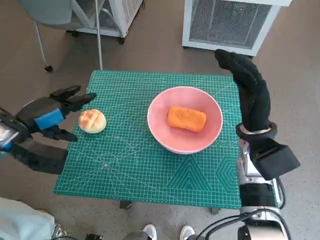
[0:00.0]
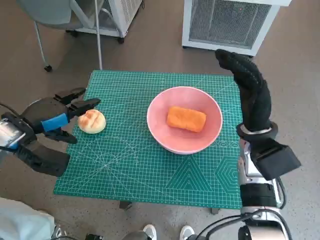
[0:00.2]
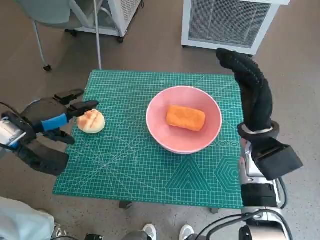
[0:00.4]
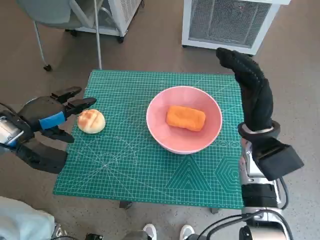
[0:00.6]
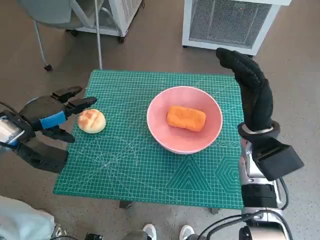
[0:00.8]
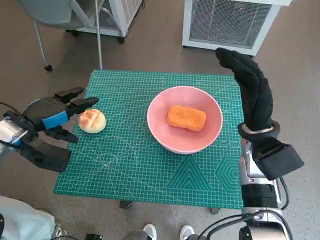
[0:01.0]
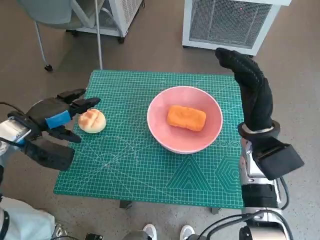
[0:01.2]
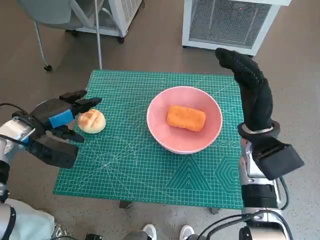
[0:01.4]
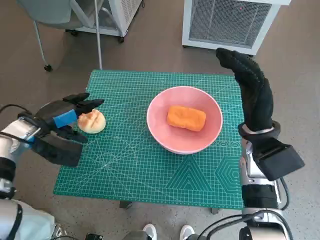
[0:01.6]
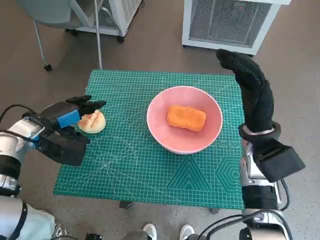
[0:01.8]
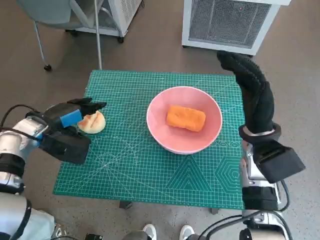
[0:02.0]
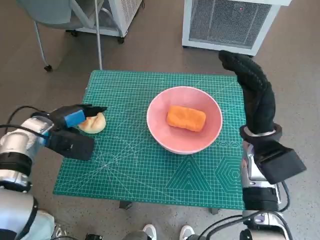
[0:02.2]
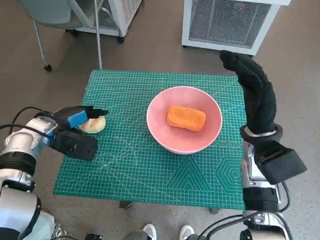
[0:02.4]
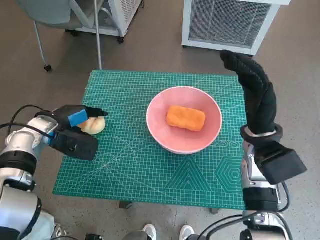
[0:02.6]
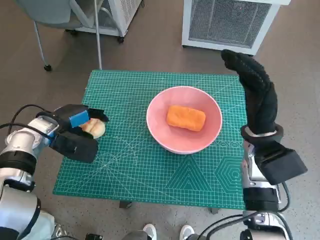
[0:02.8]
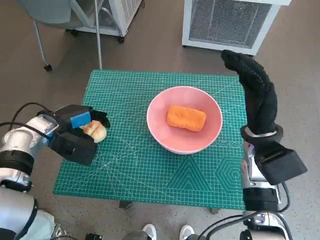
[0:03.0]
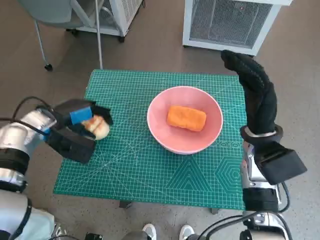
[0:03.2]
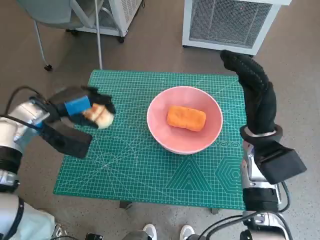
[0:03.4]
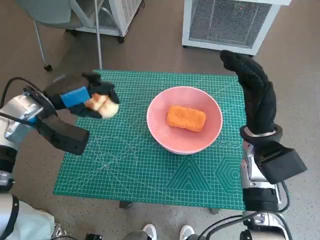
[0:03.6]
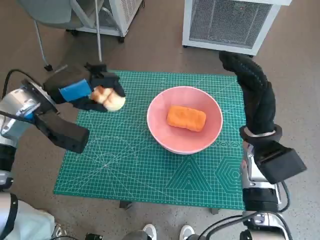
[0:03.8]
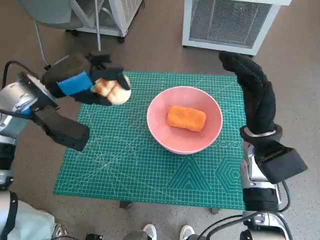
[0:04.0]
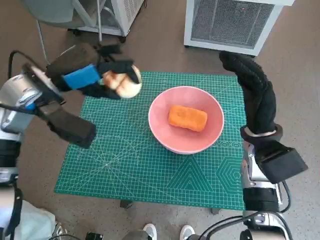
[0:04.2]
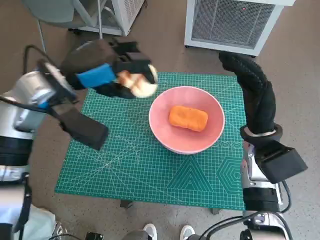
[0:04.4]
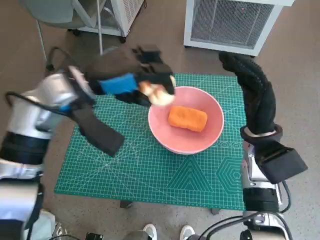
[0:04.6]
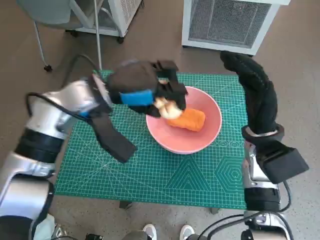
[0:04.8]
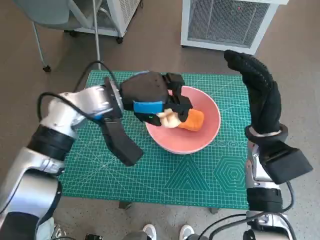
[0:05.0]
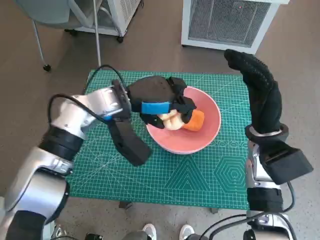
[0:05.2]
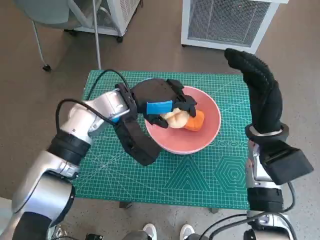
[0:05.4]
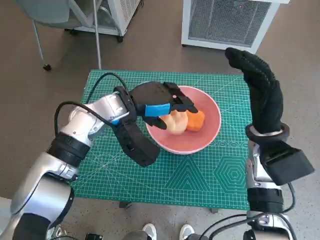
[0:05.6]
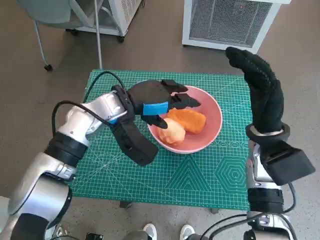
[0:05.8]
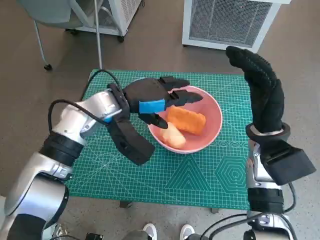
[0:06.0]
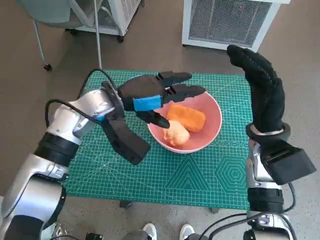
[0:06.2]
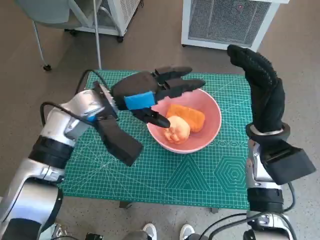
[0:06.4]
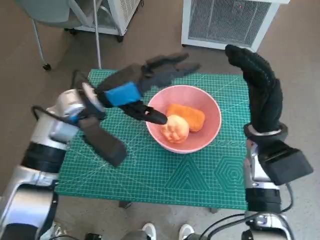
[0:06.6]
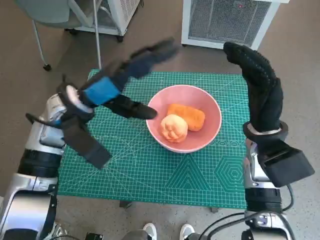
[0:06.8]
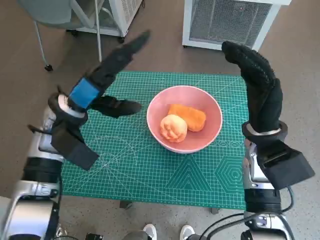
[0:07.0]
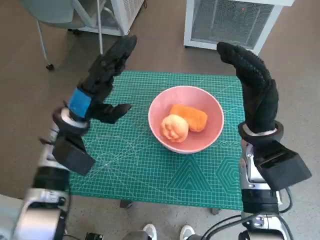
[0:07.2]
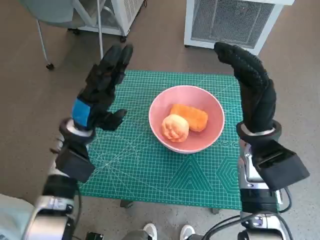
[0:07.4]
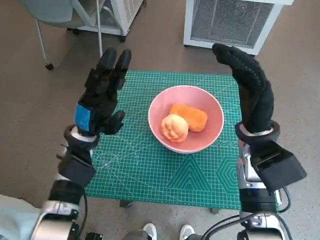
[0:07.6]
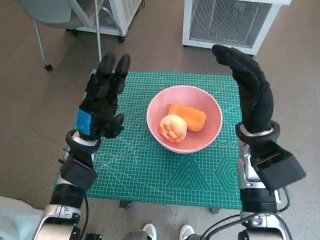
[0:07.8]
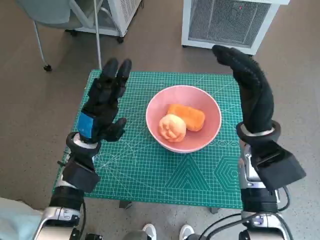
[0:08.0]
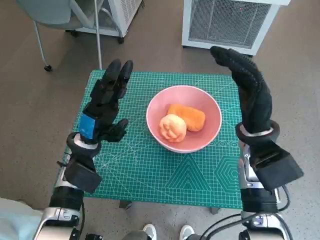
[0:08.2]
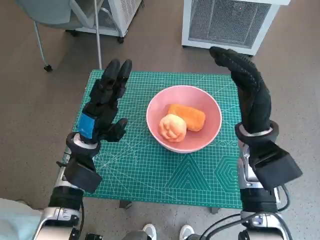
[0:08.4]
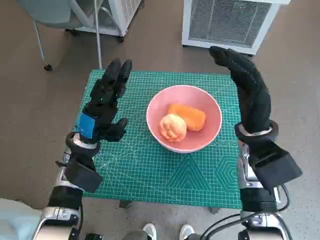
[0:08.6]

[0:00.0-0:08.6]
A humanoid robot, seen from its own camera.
Task of the whole recording: Push the bowl to the center of the table and put the bread into the bowl.
Step, 0:00.0 to 0:02.6: Grasp the round bread with left hand.
Step, 0:02.8 to 0:05.8: Place the round bread in pink bowl with left hand.
0:00.0 to 0:01.4: The hands make only small movements.
0:01.4 to 0:02.8: The hands stay close to where they were, moving slightly.
0:02.8 to 0:04.4: The left hand travels upward and to the right by approximately 15 cm.
0:04.4 to 0:05.8: The left hand shifts some 10 cm to the right and downward.
0:05.8 to 0:07.2: The left hand shifts some 10 cm to the left.
0:07.2 to 0:08.6: The left hand heads downward, covering approximately 5 cm.
